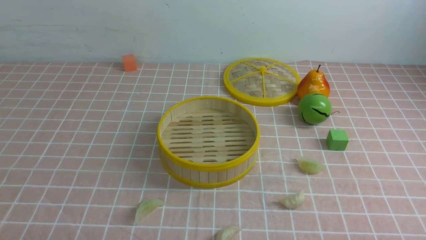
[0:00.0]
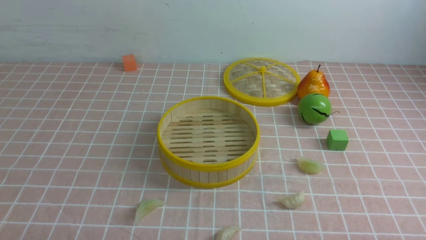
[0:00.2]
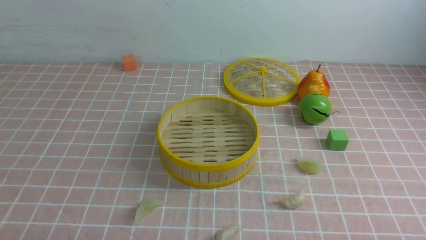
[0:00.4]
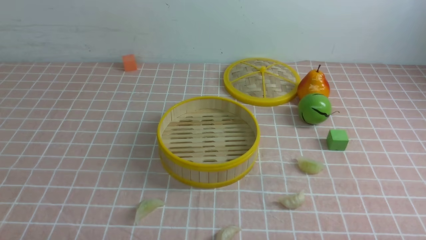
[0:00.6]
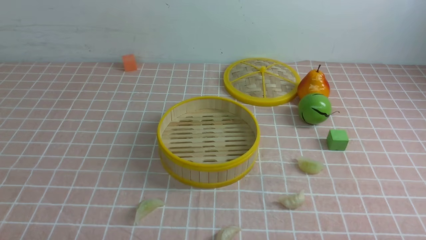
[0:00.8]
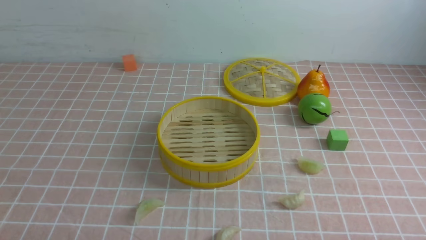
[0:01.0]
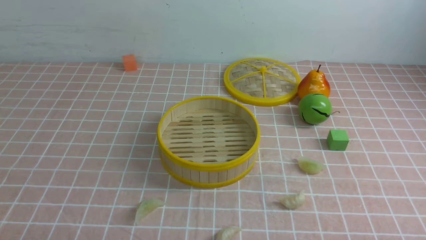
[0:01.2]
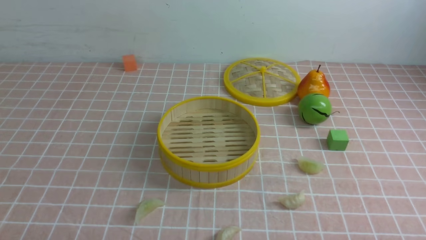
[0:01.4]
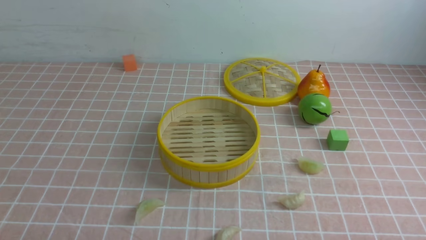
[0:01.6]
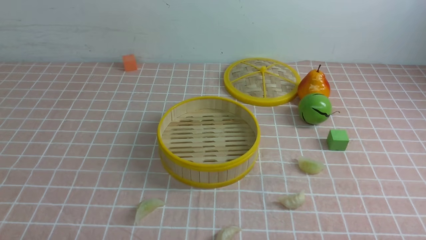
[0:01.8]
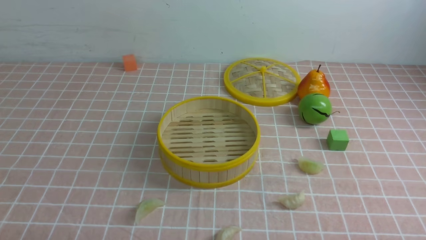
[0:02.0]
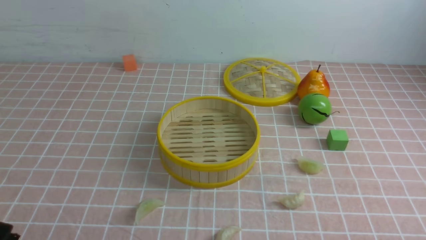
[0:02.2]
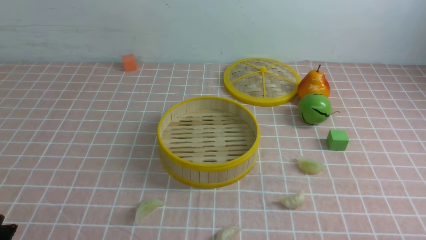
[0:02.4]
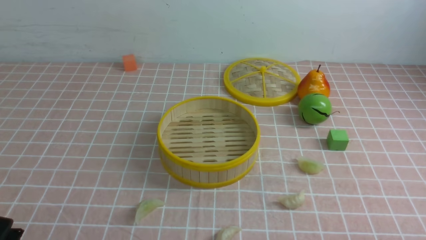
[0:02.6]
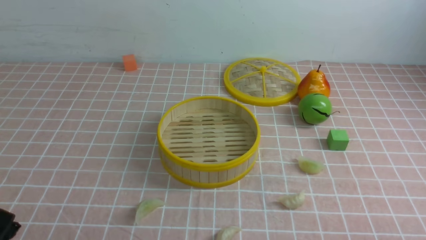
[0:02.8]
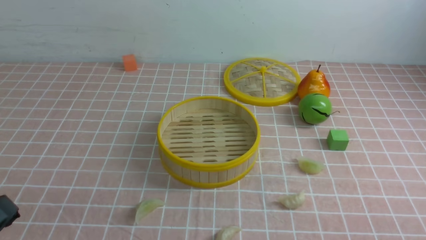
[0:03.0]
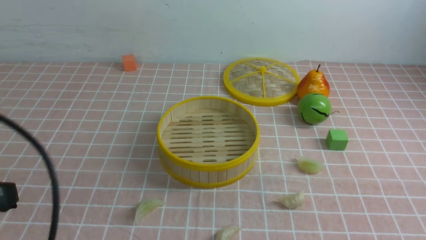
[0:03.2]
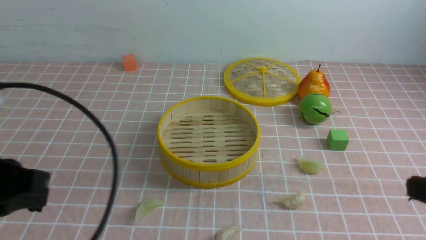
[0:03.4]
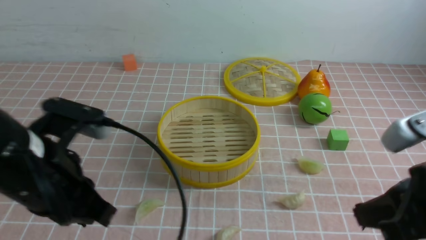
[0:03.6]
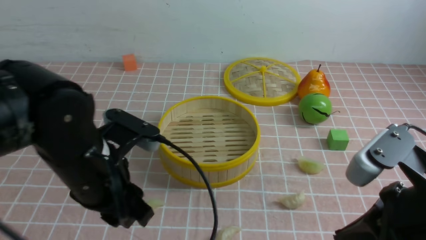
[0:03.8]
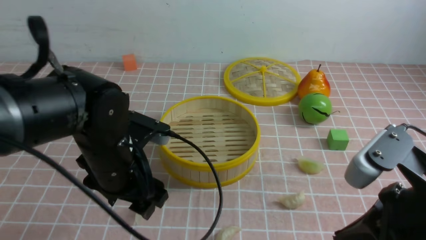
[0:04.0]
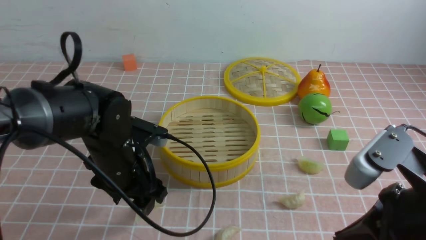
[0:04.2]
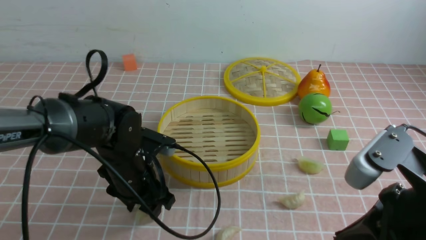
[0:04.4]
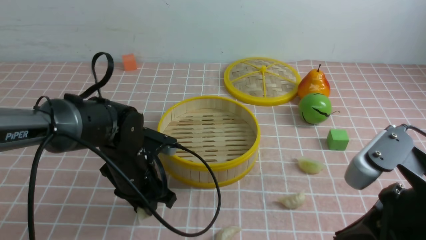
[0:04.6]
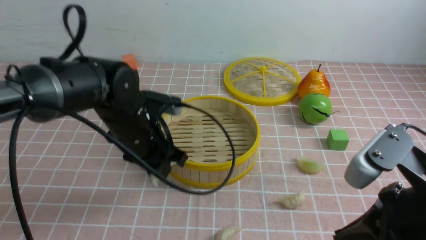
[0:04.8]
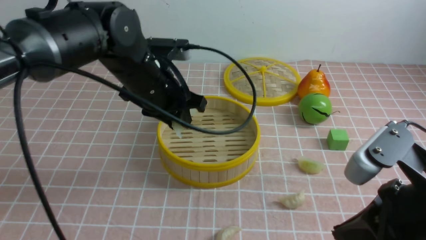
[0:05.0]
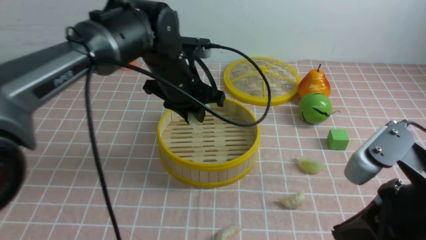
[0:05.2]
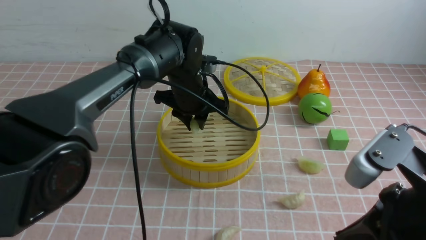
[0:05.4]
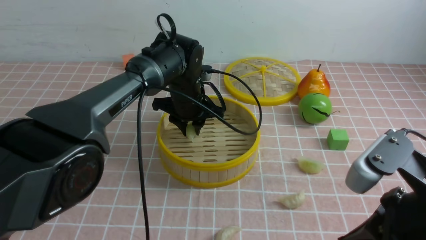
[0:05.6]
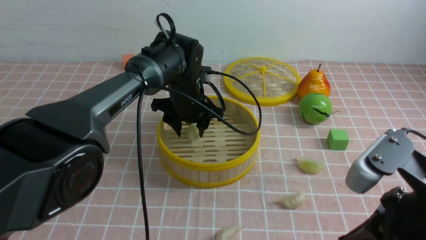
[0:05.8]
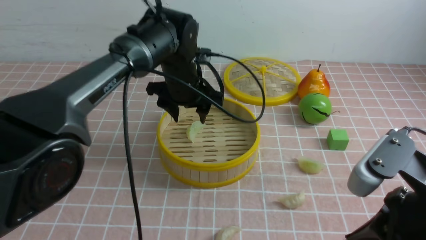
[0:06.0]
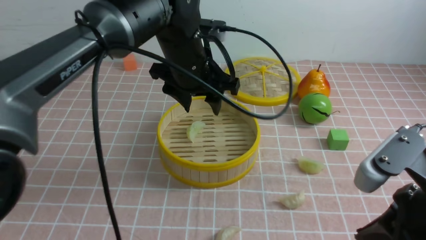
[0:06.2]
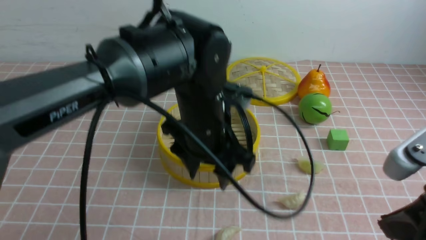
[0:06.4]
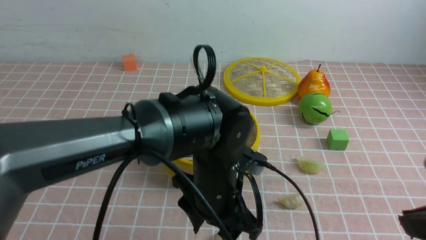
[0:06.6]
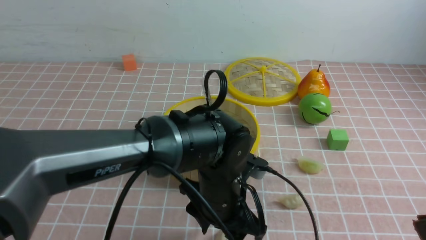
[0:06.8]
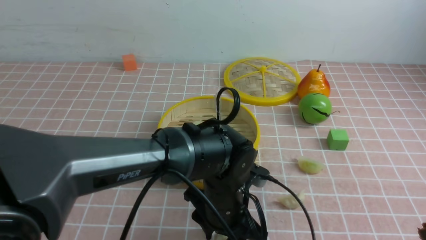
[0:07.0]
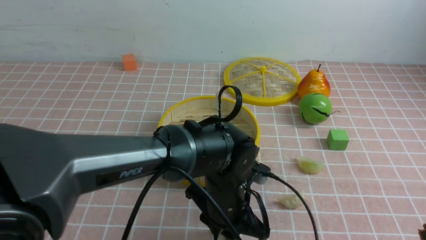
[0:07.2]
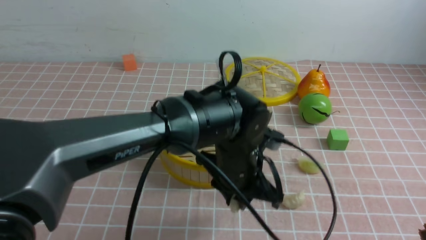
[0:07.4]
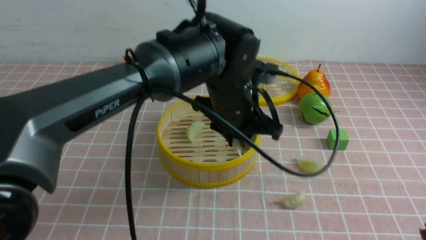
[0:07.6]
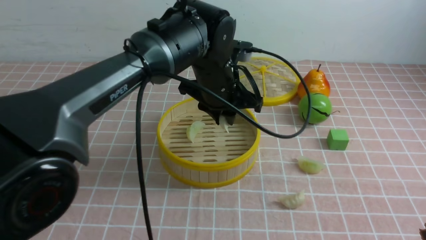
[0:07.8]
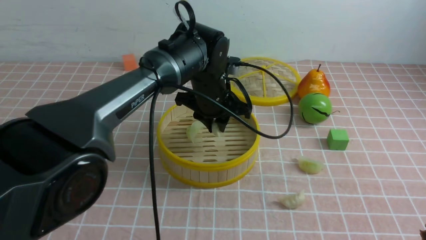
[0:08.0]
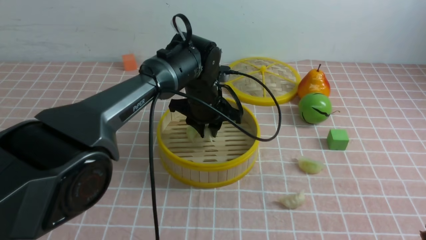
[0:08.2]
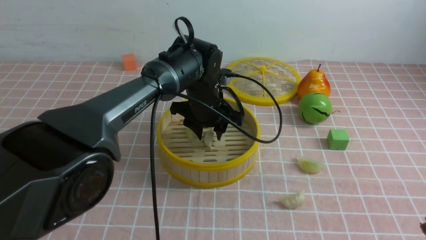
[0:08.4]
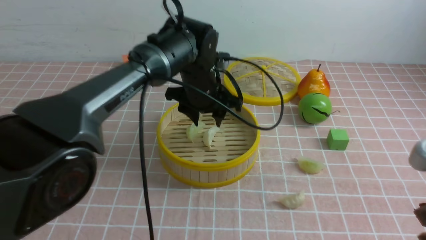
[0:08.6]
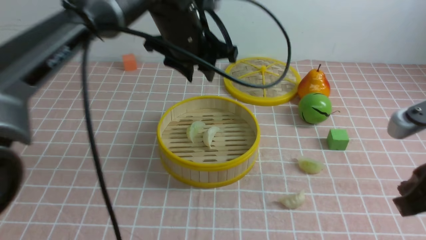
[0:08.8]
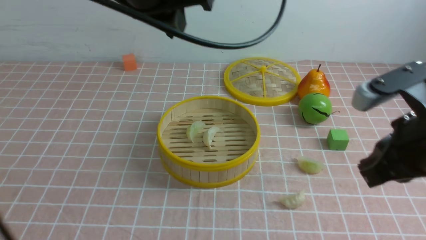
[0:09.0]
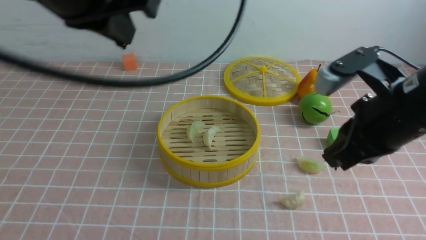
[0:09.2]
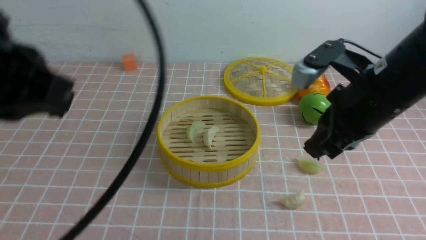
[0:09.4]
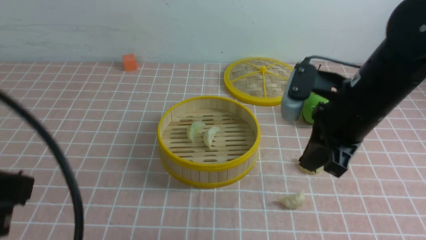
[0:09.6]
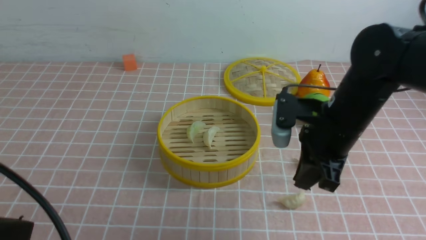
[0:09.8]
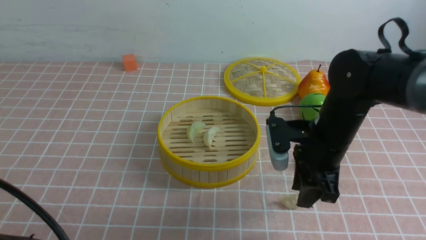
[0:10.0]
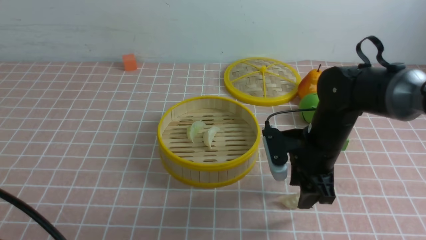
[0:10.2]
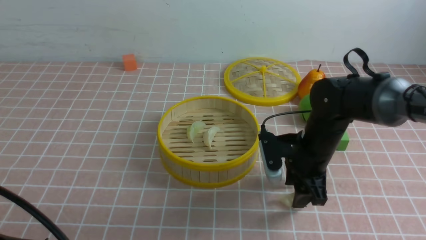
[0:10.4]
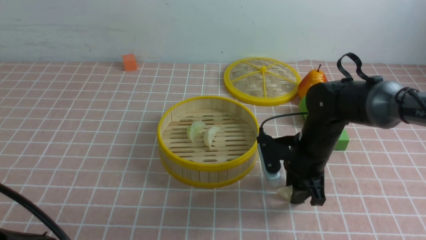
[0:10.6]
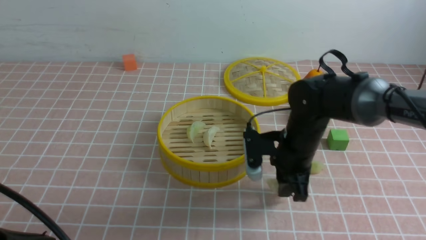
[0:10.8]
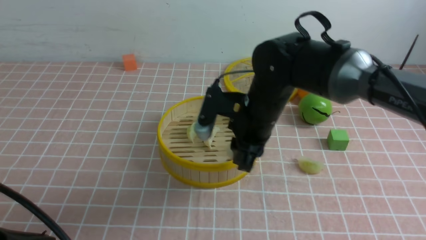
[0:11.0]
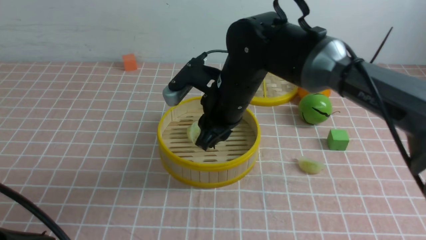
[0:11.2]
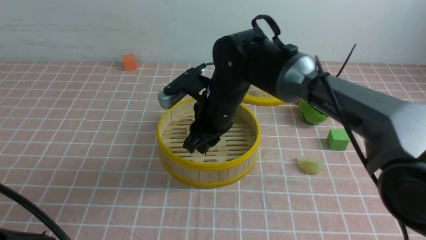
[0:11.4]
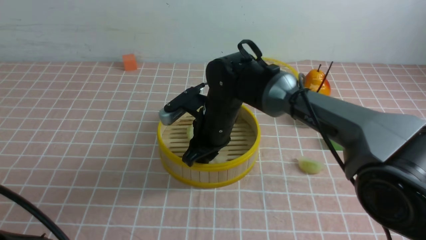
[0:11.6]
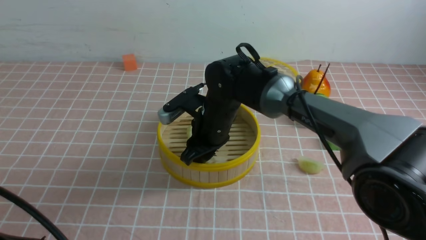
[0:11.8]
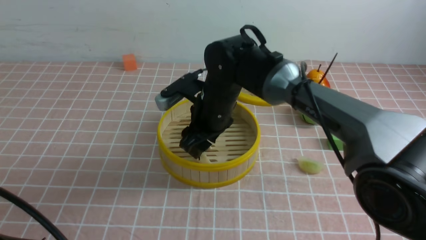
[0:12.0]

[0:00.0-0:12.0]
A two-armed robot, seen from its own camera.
Task of the whole recording: put the dumplings into the steamer on the table with the pink tablecloth.
Step, 0.0 to 4.6 s: use the left arm to grab a dumpling.
Step, 4.8 to 5.8 s: use the left arm to put the dumpling into the steamer.
Step, 6.0 to 7.2 s: use the left arm to grab a dumpling.
Step, 7.4 to 8.6 s: use the left arm to put the dumpling into the steamer.
Step, 8.8 to 10.8 s: use the right arm to grab a dumpling.
Step, 11.0 to 12.0 s: use the right arm to put the dumpling into the steamer.
0.0 to 1.6 s: Both grippers stay put.
3.0 to 4.4 s: The left gripper travels forward, to the right and downward by some 30 cm, and opens up, while the right gripper moves to the left, forward and upward, roughly 15 cm.
4.4 to 6.0 s: The left gripper is displaced forward, upward and to the right by roughly 15 cm, and closes, then opens again.
6.0 to 7.6 s: The left gripper heads backward and to the right, covering about 10 cm, and closes up; the right gripper moves backward, some 5 cm.
7.6 to 9.0 s: The right gripper travels forward by approximately 10 cm. The left gripper shifts approximately 20 cm upward and to the left.
9.0 to 10.4 s: The right gripper is displaced downward and forward by about 20 cm, and opens up. Meanwhile the left gripper is displaced backward, downward and to the left by some 30 cm.
10.4 to 12.0 s: The right gripper goes some 15 cm to the left and upward, and closes, then opens again.

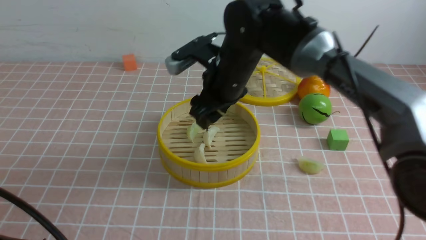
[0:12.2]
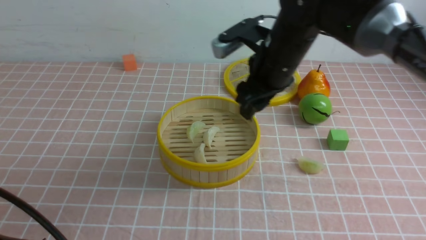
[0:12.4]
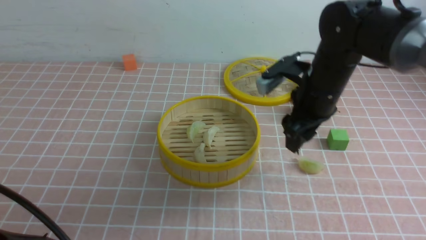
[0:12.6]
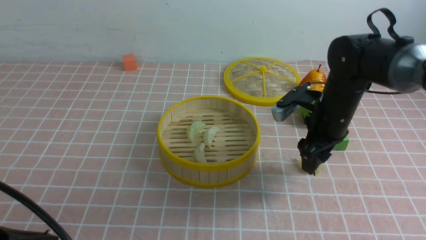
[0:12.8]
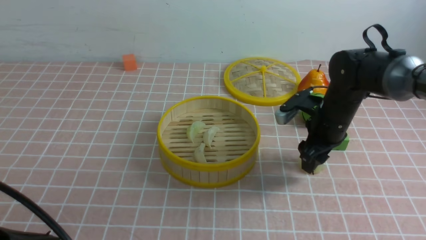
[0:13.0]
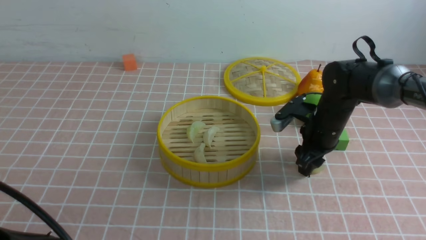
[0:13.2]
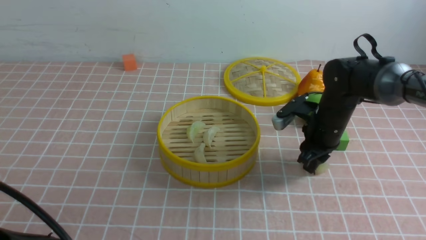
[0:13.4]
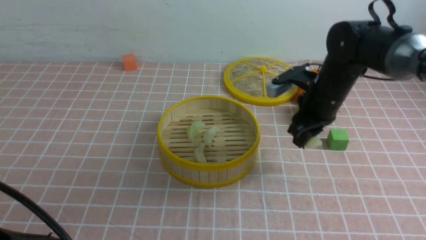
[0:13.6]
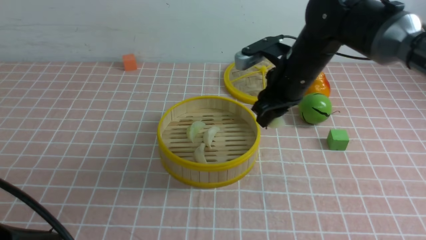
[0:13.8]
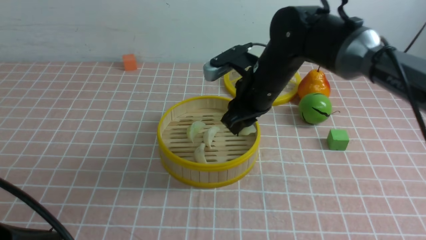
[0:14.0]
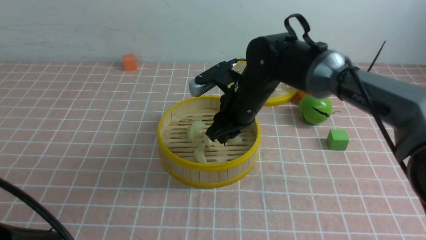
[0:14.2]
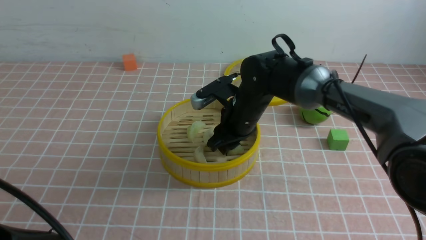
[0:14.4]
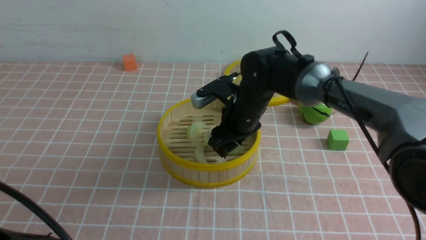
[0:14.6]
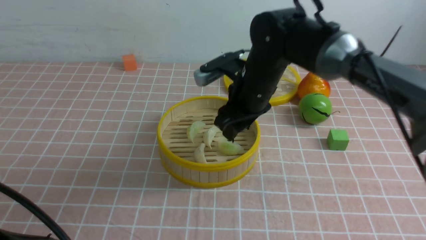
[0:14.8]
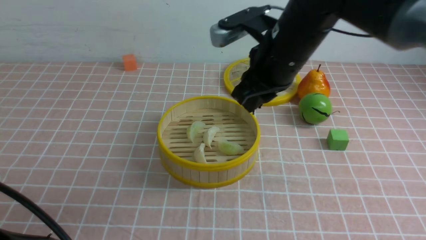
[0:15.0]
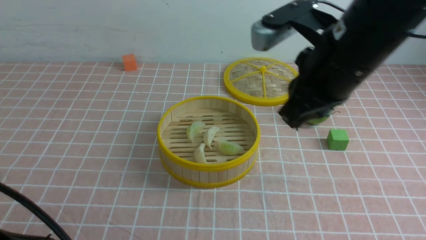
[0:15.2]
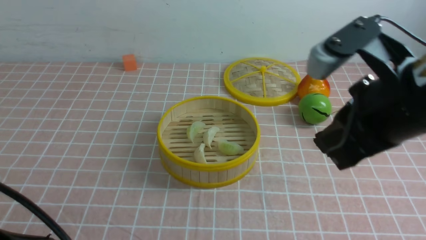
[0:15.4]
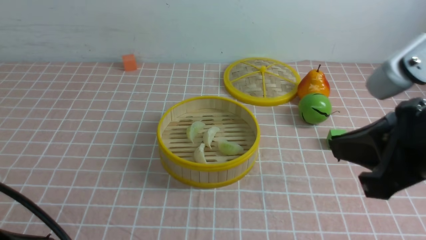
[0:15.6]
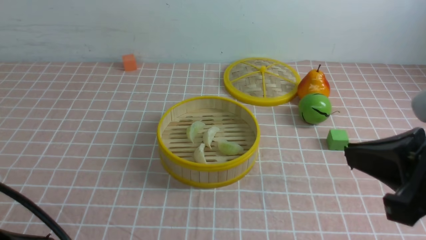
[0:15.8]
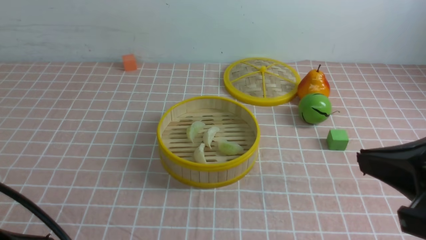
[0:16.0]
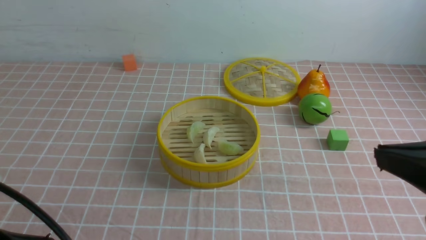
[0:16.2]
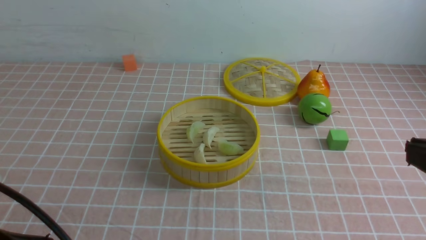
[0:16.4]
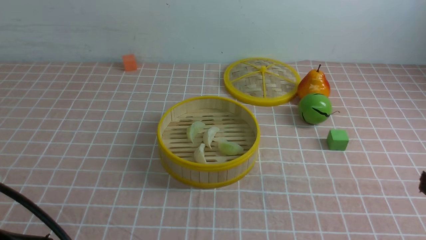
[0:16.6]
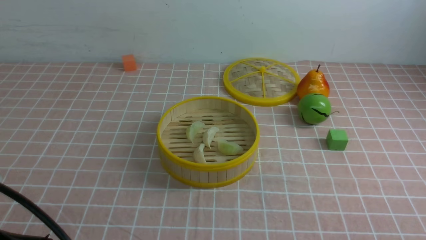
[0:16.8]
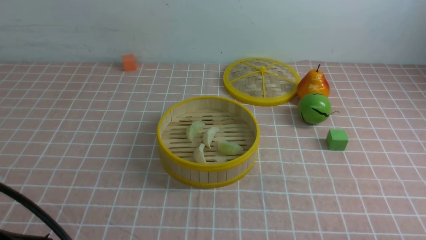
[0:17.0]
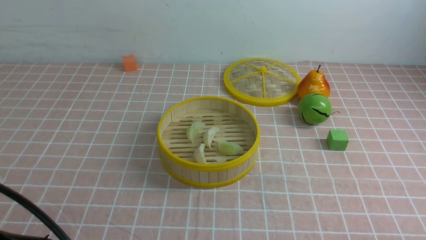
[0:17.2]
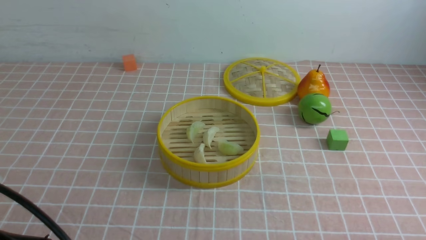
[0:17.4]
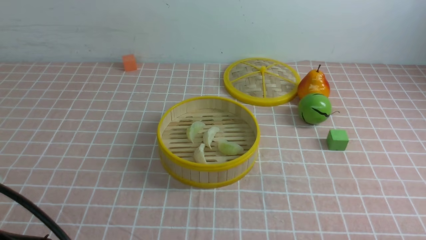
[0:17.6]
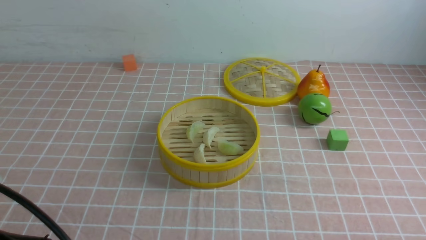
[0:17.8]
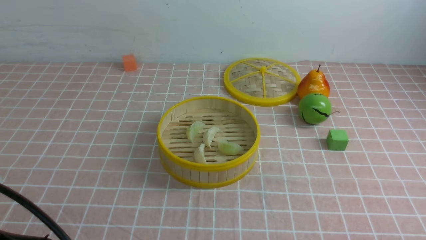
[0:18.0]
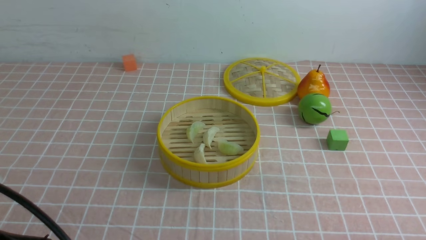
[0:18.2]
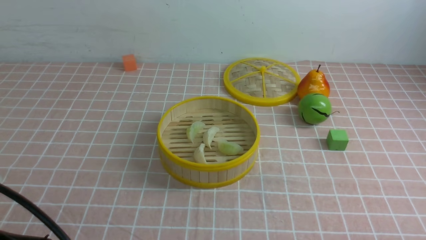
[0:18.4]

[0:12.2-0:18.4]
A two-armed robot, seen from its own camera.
Task of the whole recording: put the dumplings into the steamer on the table with the pink tablecloth.
Step, 12.2 to 13.4 s: use the right arm to grab a dumpling.
Step, 13.6 to 14.8 s: use the right arm to put the dumpling into the steamer.
12.2 to 13.8 s: The right gripper goes some 5 cm to the right, and closes its fingers.
13.8 to 15.4 s: The right gripper heads backward and upward, covering some 25 cm, and closes its fingers.
15.4 to 16.8 s: The right gripper moves downward, backward and to the right, about 25 cm.
16.8 to 18.4 s: The right gripper shifts about 5 cm downward.
